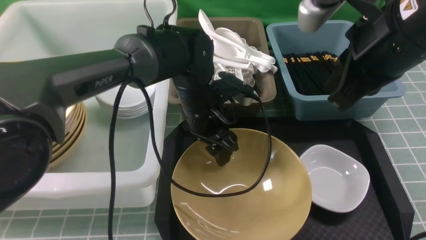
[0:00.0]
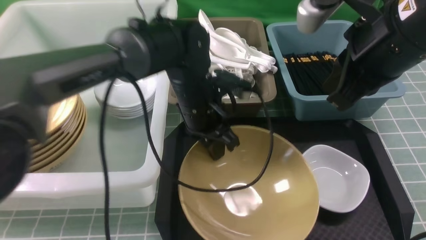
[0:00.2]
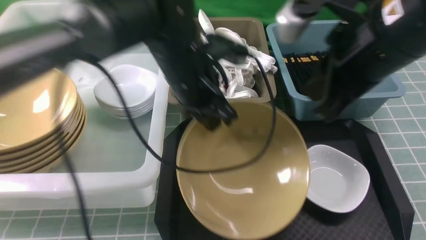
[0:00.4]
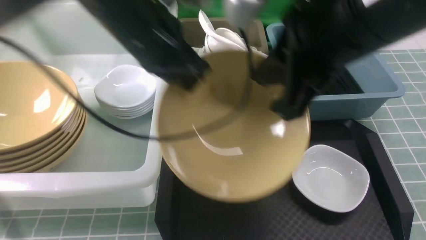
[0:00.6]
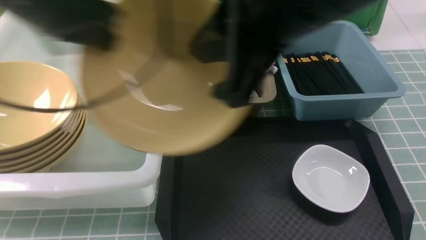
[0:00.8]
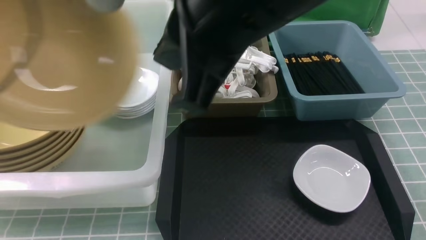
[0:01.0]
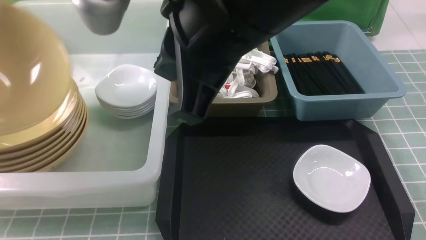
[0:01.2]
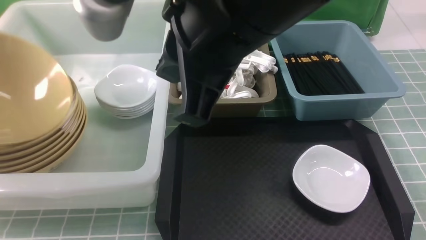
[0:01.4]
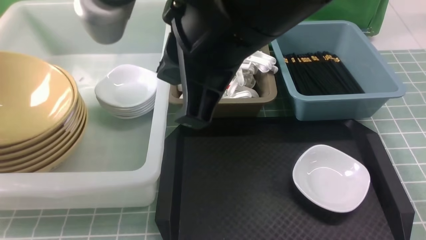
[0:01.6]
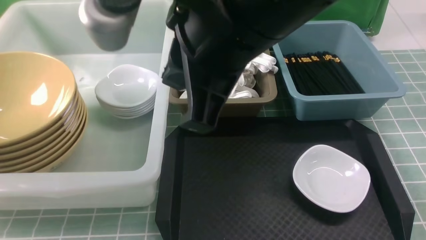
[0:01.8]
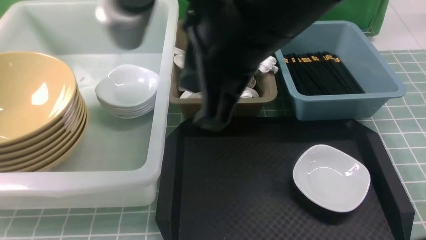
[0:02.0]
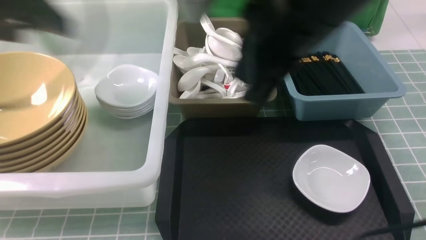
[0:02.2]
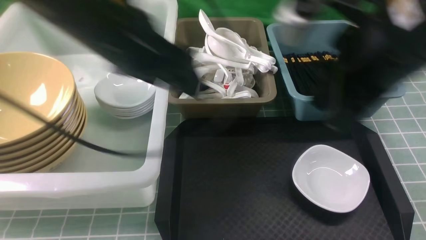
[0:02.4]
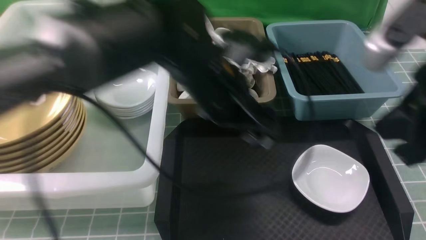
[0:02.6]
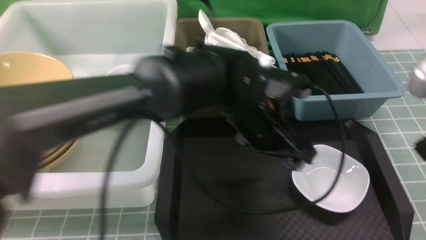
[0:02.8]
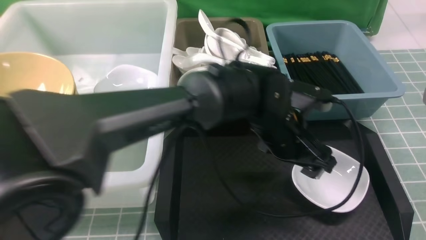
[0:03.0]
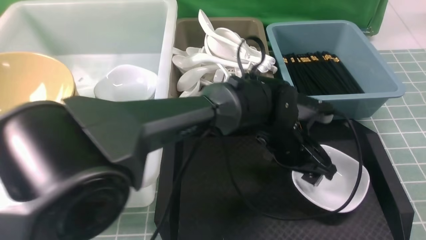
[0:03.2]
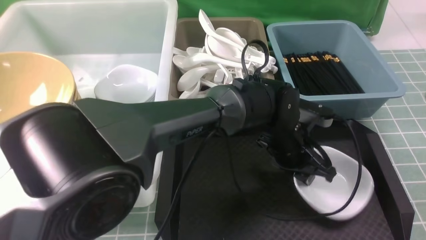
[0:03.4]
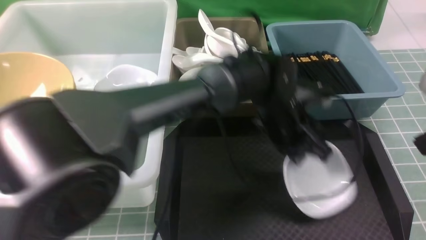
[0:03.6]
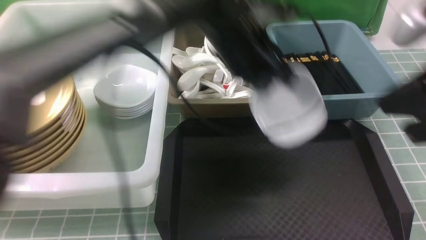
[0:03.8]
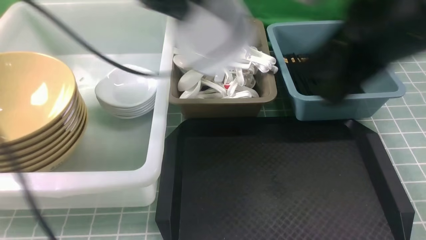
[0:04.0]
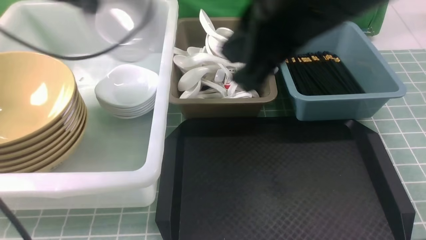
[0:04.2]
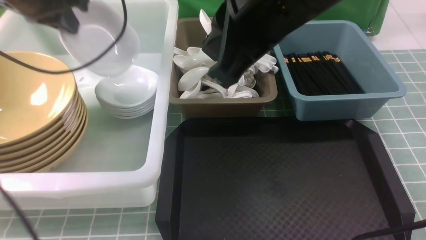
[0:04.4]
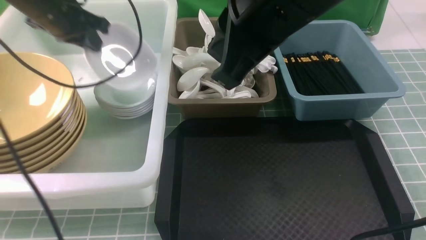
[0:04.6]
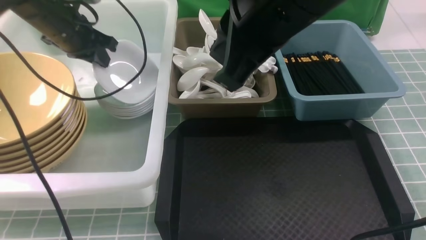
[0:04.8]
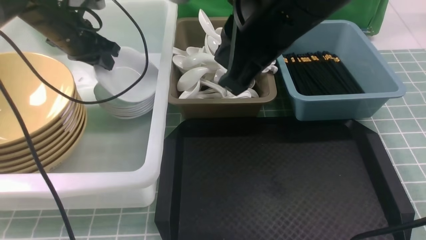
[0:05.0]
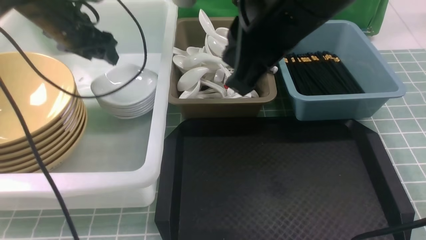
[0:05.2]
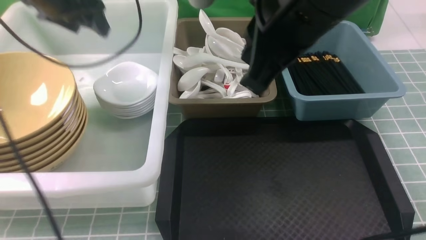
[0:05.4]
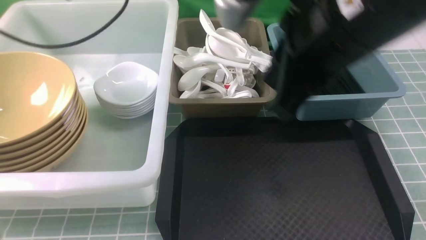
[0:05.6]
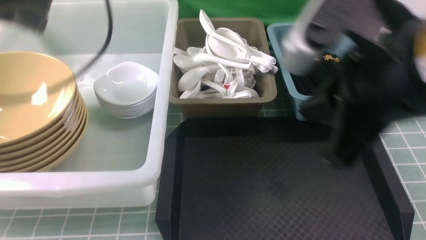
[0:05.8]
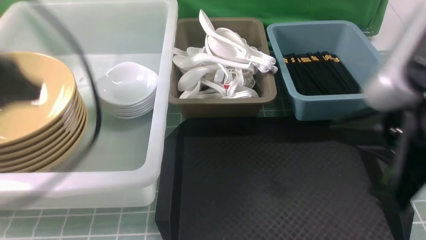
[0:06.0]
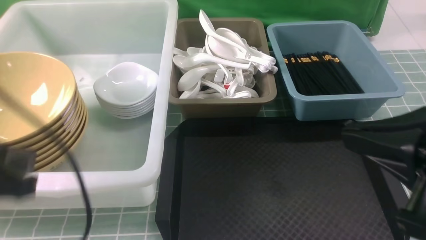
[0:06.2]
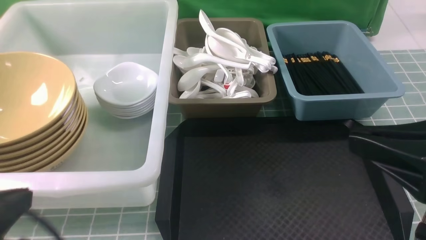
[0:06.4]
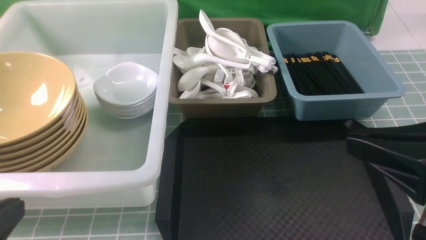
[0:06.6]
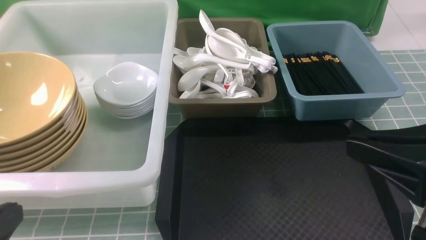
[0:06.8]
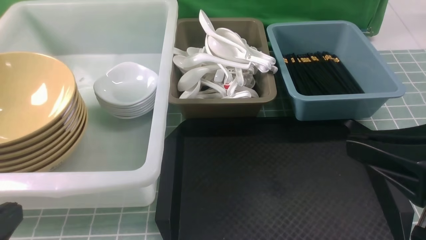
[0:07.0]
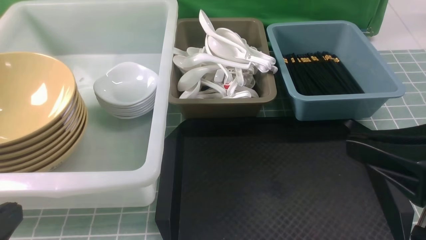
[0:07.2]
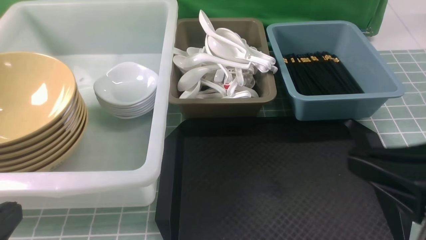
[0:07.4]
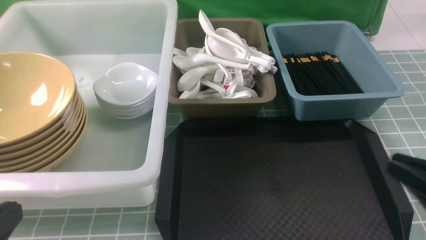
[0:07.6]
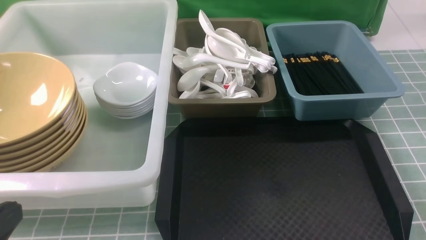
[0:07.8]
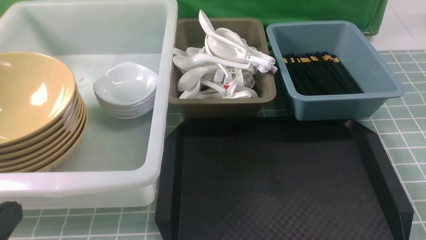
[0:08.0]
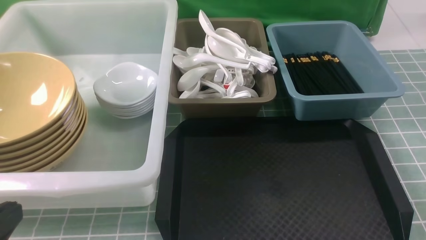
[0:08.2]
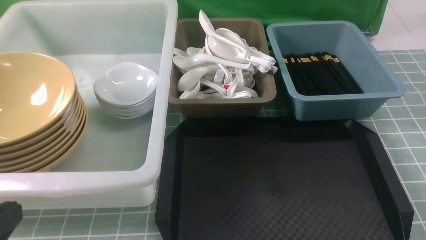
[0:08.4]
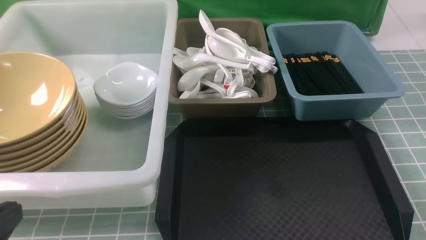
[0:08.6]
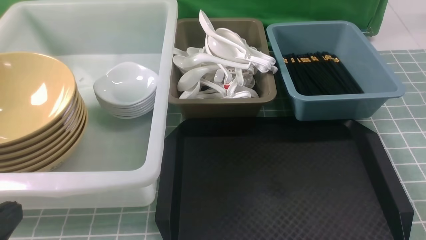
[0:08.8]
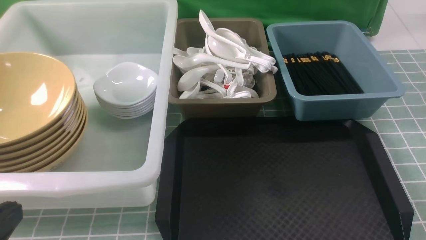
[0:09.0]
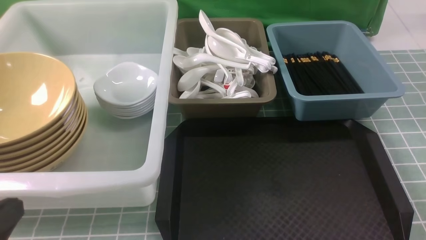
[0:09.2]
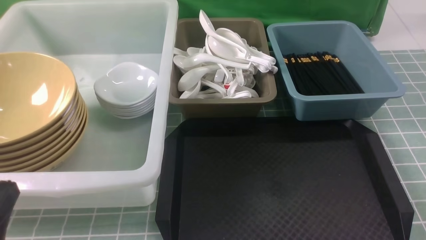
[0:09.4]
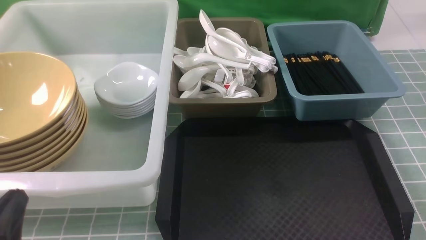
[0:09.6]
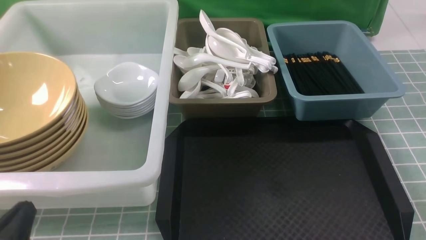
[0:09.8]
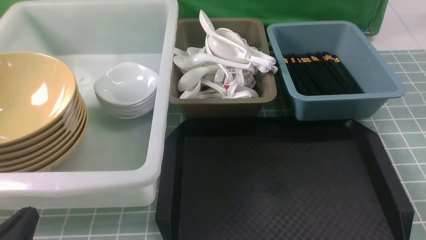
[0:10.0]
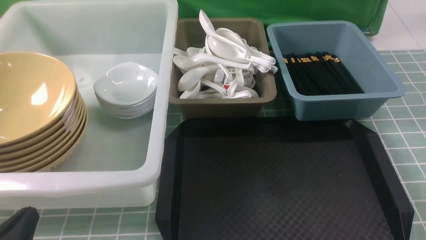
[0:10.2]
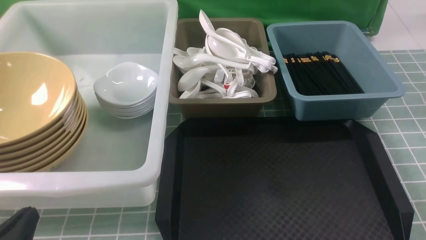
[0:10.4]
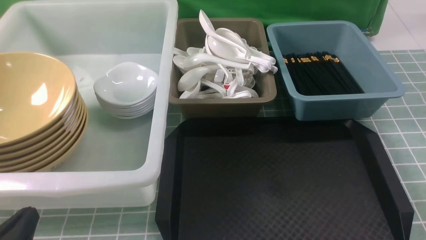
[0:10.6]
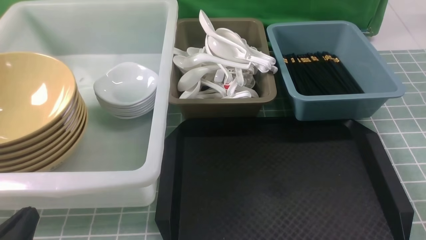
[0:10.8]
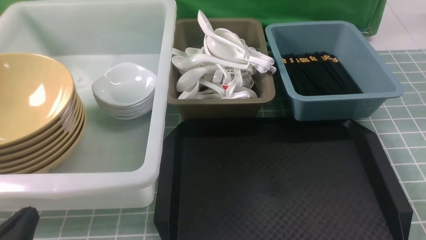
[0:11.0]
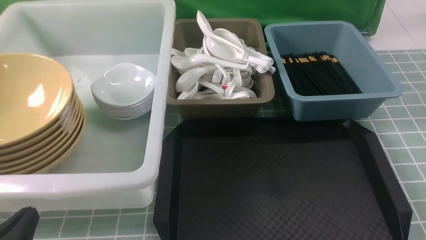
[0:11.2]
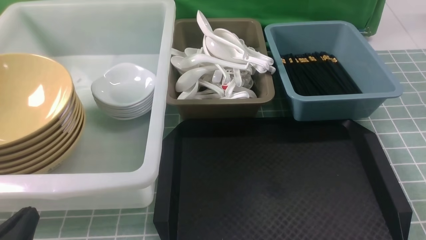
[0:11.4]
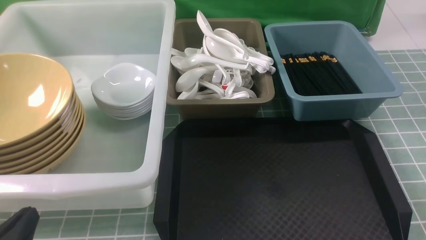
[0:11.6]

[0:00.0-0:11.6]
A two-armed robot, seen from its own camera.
Task of the whole recording: on blue table put chopsticks spoon bowls plates into blue grey white boxes.
Step, 0:00.6 to 0:02.0: use the left arm to put the noodle bowl into the large storage box on the left.
Step, 0:02.2 to 0:03.6: use the left arm to grab the plate.
Step, 0:03.8 to 0:05.4: use the left arm to put the plate into the large storage box on the left.
0:00.0 to 0:01.4: The right gripper is displaced to the left by approximately 15 cm; the left gripper travels to the left by roughly 40 cm.
0:01.4 to 0:02.8: The right gripper moves to the right, about 20 cm; the left gripper shifts roughly 50 cm to the right, and opens.
0:02.8 to 0:04.4: The left gripper moves to the left, about 30 cm, and closes its fingers; the right gripper heads to the left, upward and forward, covering about 20 cm.
0:04.4 to 0:05.8: The left gripper heads backward and upward, covering some 15 cm, and opens, then closes once more. The right gripper moves to the right and backward, some 10 cm.
0:05.8 to 0:07.2: The left gripper travels backward and downward by about 25 cm, while the right gripper shifts roughly 10 cm backward, to the right and downward.
0:07.2 to 0:08.8: The right gripper heads downward and to the right, covering roughly 20 cm.
0:08.8 to 0:10.2: The left gripper is displaced downward by about 10 cm.
0:10.2 to 0:11.6: The two grippers keep their place.

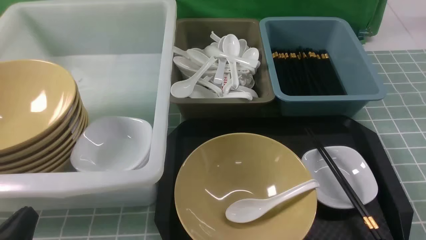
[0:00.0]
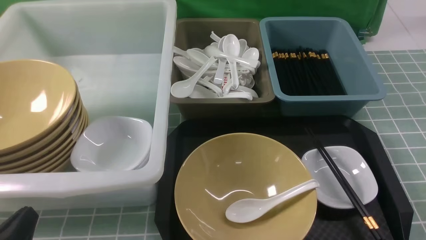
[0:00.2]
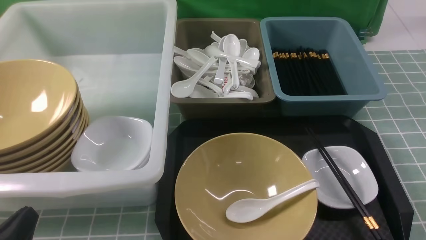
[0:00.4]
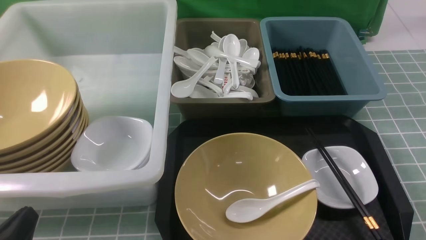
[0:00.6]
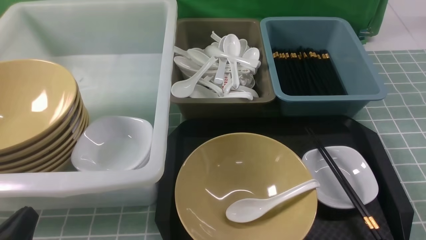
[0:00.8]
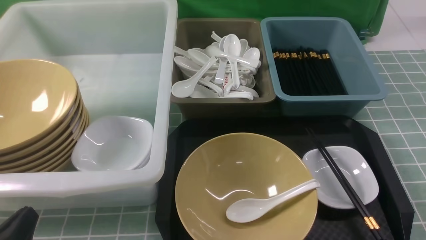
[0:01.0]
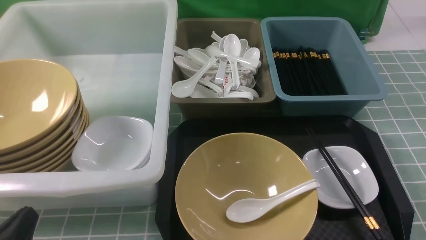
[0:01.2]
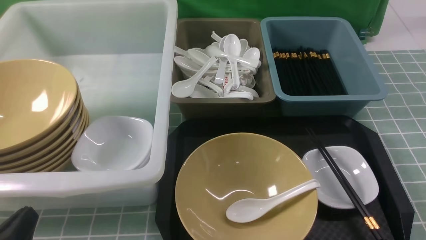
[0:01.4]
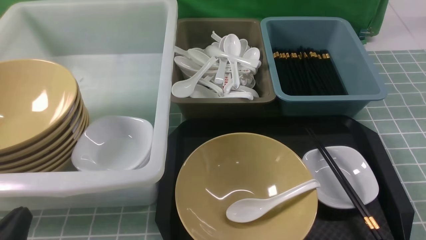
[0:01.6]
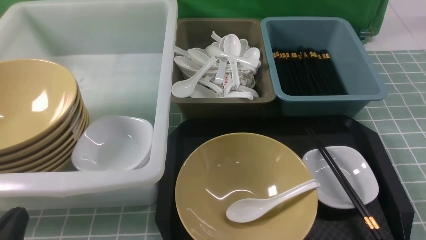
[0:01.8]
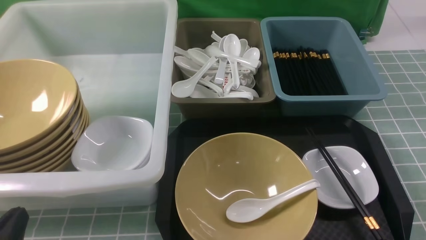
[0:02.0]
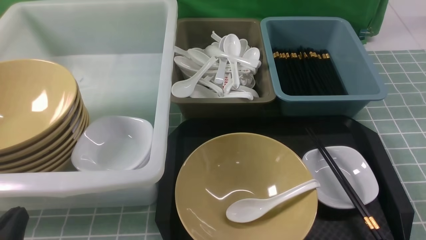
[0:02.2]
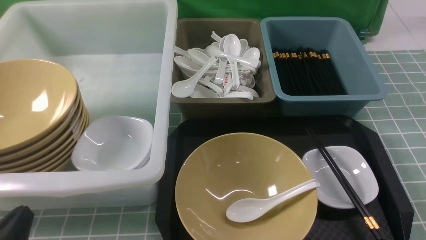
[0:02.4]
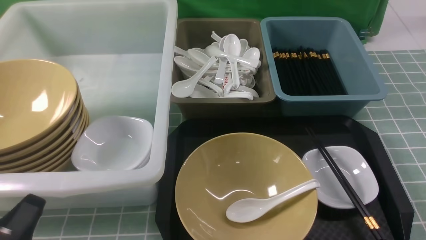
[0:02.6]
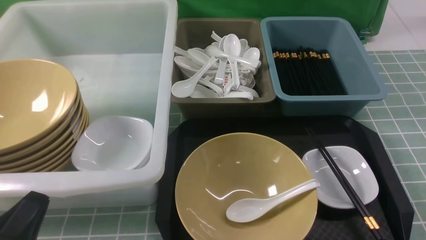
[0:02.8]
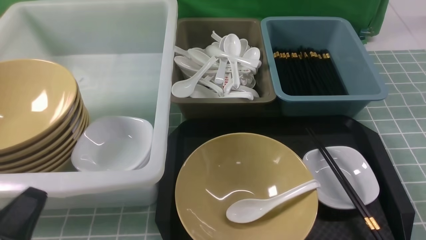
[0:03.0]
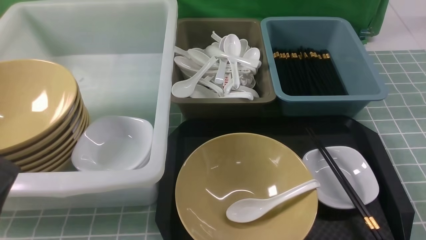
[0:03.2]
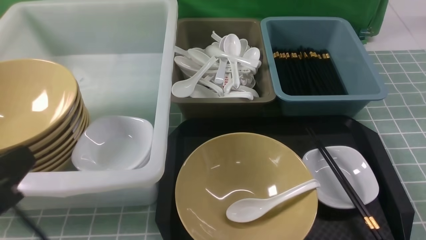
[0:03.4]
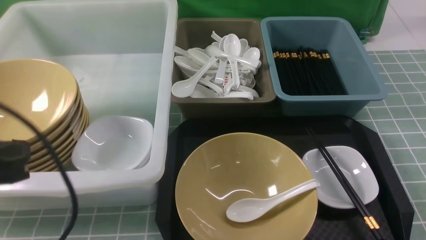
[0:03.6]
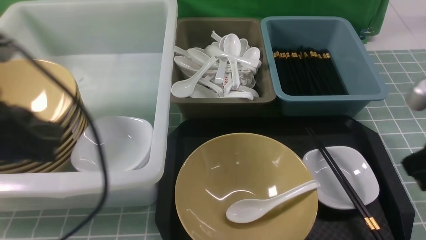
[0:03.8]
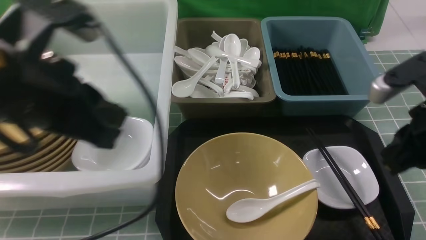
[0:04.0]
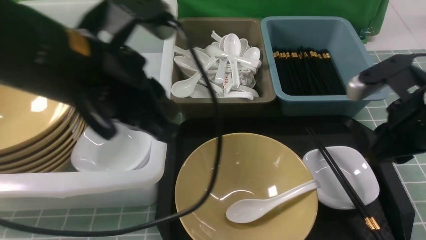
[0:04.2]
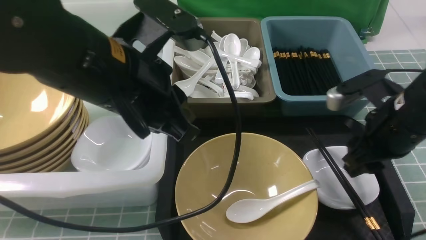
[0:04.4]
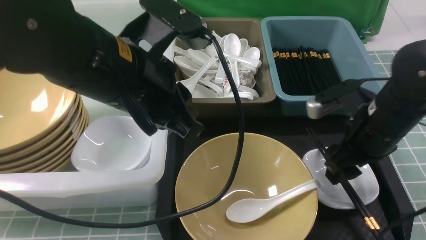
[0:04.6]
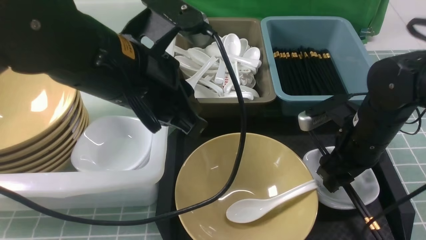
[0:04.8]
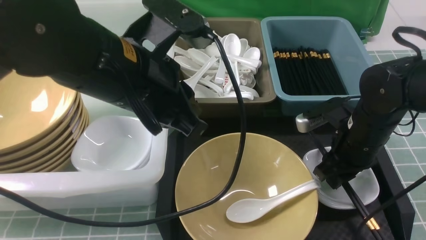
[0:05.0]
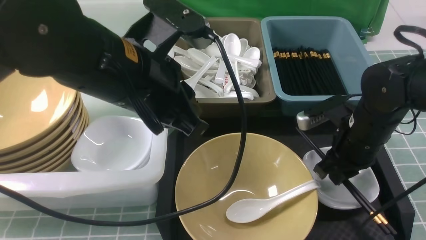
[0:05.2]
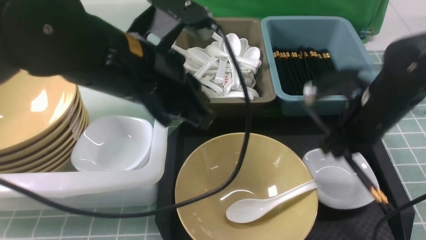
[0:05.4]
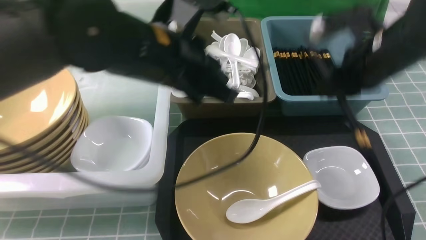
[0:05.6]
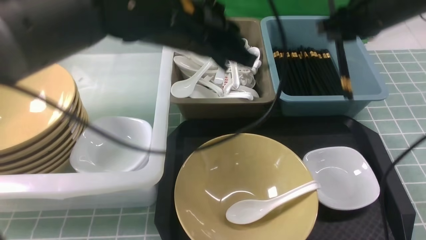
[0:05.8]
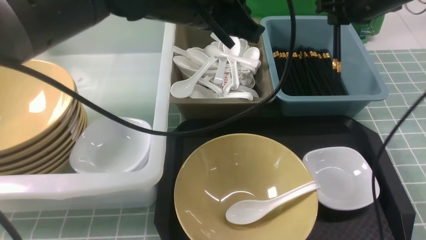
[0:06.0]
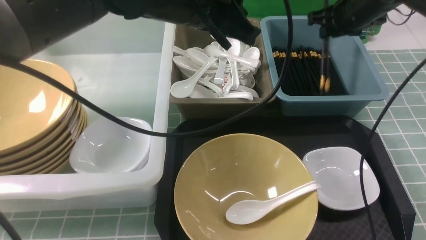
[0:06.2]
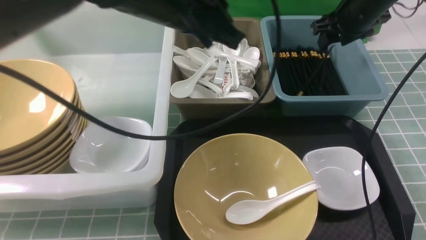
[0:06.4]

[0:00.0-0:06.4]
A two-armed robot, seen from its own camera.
Task of the whole recording: on blue table put chopsticks spoon bowls plates into blue grey white boxes.
Step, 0:00.0 to 0:05.4: use the right arm to grab the chopsticks.
Step, 0:05.6 to 0:06.4: use the right arm to put the chopsticks into the small storage box on the right.
0:00.0 to 0:01.6: There are only small adjustments of the grippers.
0:01.6 to 0:03.2: The left gripper travels upward by approximately 10 cm.
0:03.2 to 0:04.8: The right gripper heads forward and to the left, covering approximately 25 cm, and opens up. The left gripper moves forward, to the right and upward, some 25 cm.
0:04.8 to 0:06.4: The right gripper travels forward and upward by some 20 cm, and closes and opens again. Meanwhile the left gripper travels forward by roughly 5 cm.
